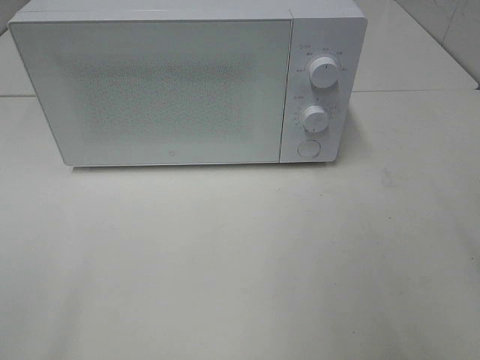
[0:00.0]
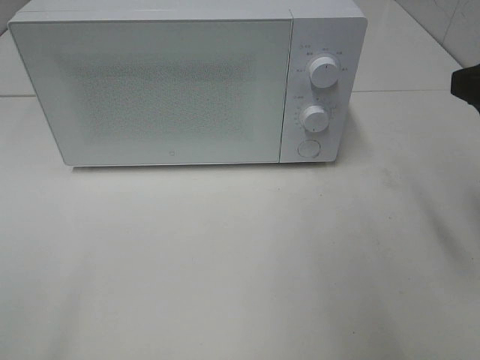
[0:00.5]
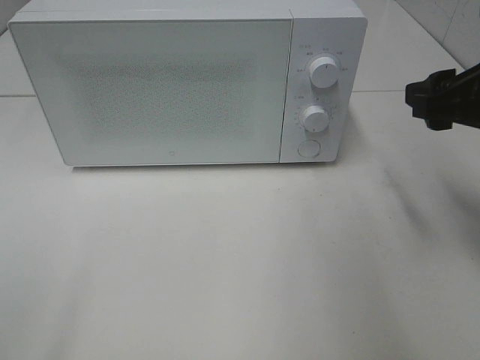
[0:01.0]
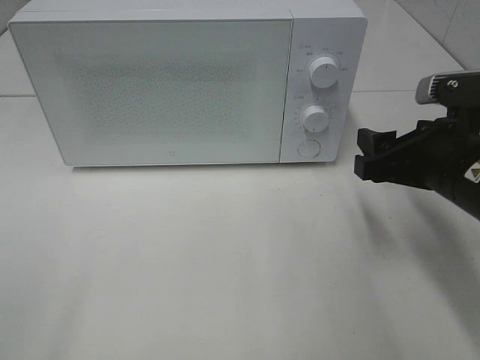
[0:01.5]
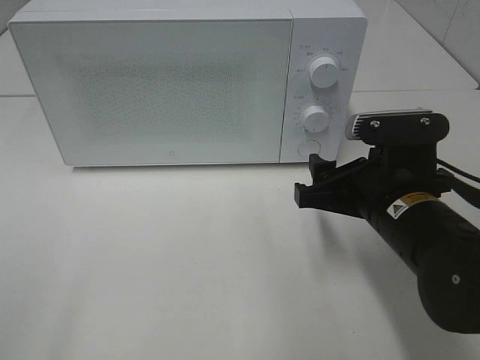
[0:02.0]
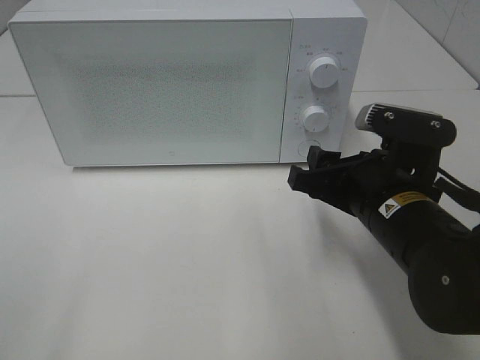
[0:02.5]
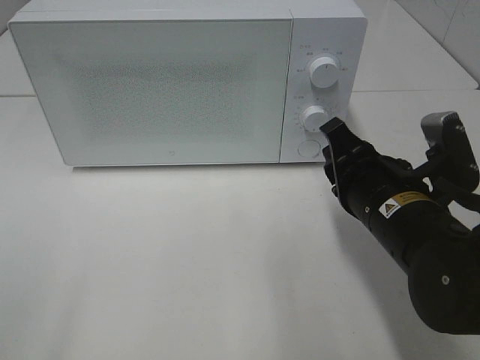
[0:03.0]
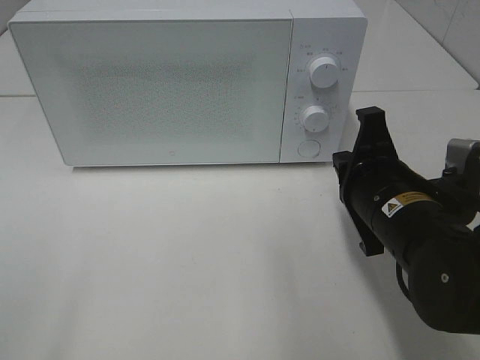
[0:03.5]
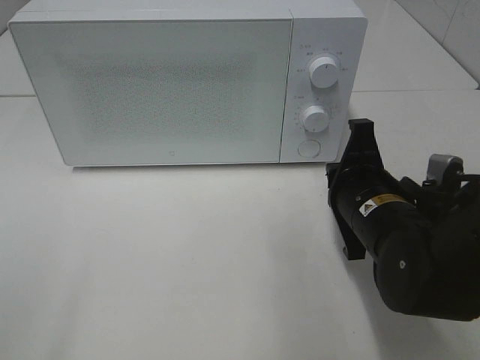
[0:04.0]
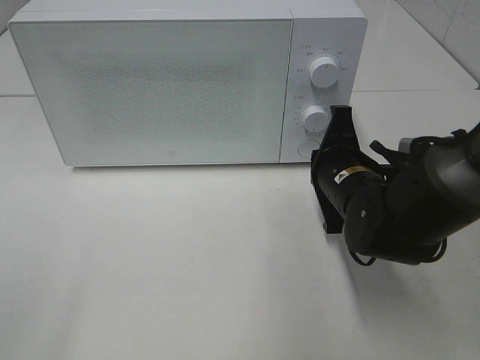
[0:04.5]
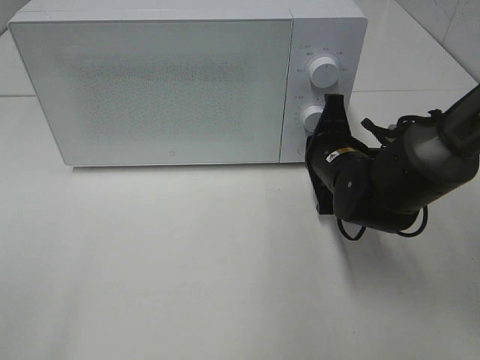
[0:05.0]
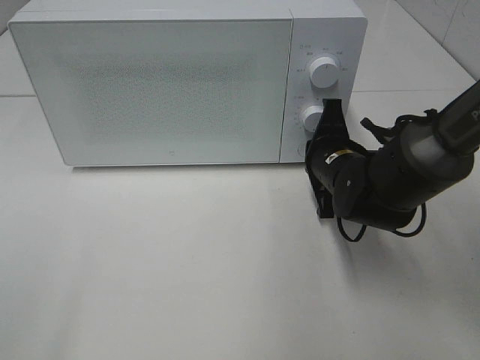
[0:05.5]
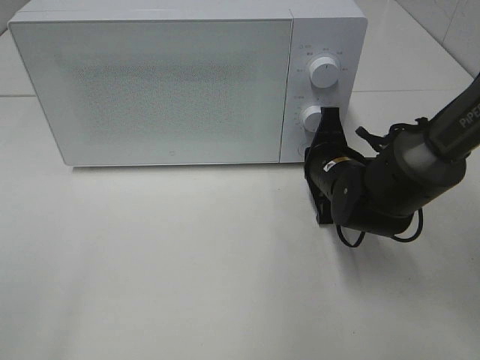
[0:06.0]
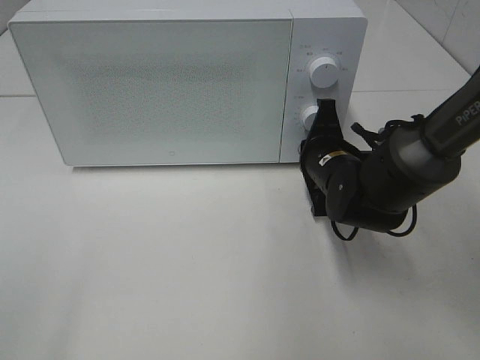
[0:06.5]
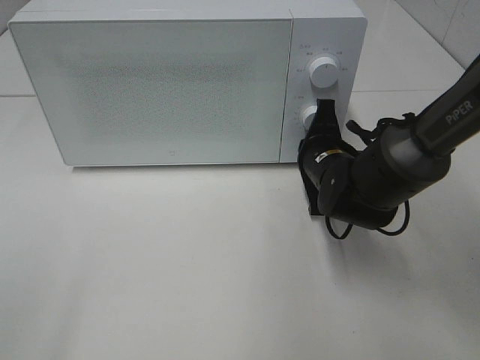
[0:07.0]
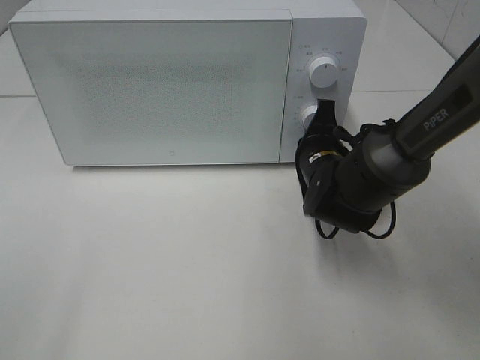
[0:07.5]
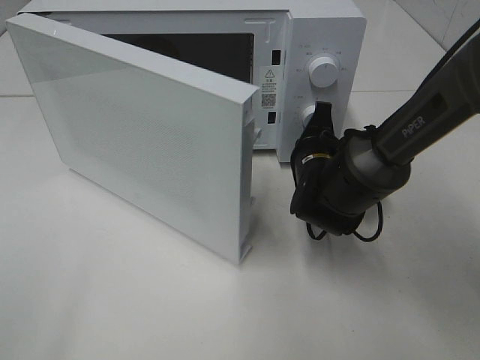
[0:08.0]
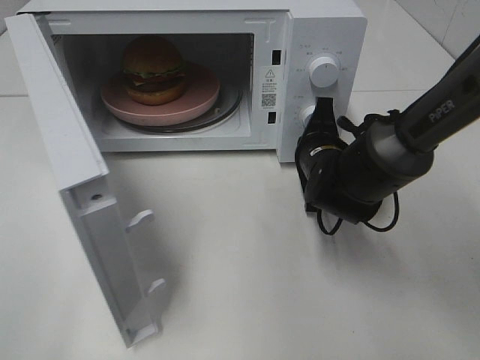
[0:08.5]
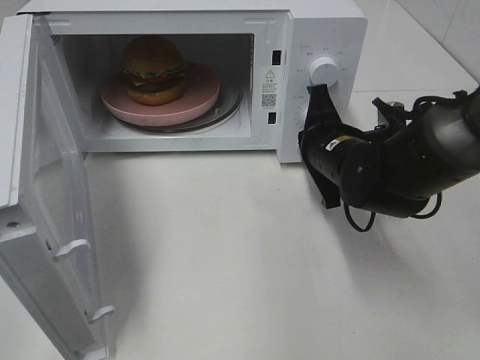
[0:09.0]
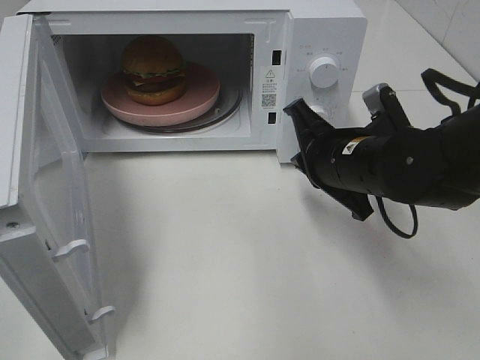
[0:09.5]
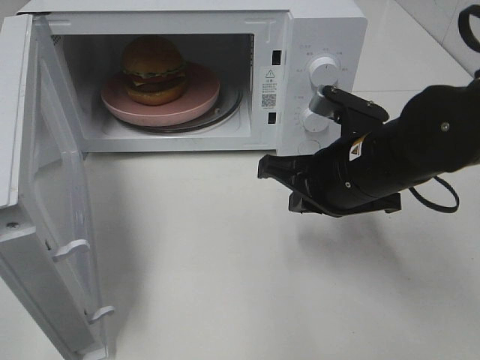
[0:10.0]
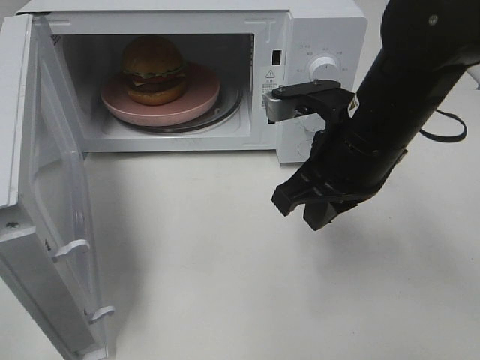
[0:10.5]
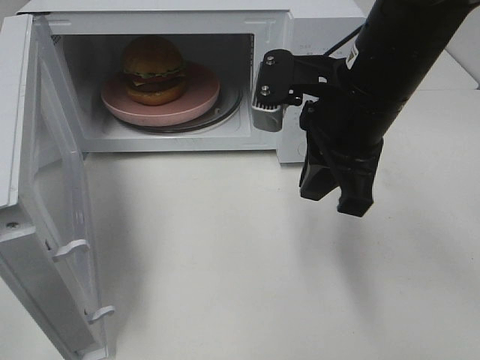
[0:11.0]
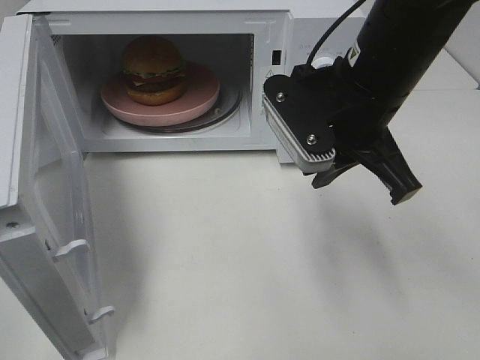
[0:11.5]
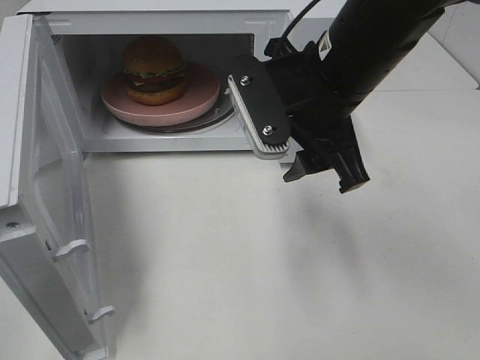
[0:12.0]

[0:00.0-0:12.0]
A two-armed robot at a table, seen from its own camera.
Task of the whole recording: Heat the burger.
Step, 0.0 to 8.5 s: Right hand: press the switch.
0.0 to 2.0 s: The right gripper moves downward, to the left and forward, some 25 cm.
2.0 to 4.0 s: The right gripper closes up.
4.0 to 6.0 s: The right gripper goes roughly 10 cm forward.
8.0 to 10.0 s: The right gripper moves backward and upward, some 15 cm.
10.0 to 12.0 s: The right gripper heads upward, covering some 10 cm, and opens its fingers.

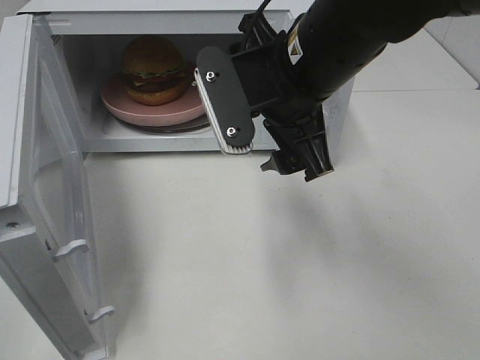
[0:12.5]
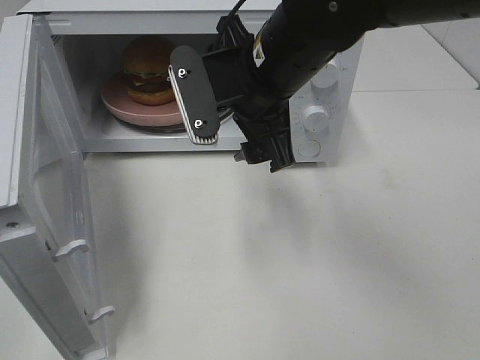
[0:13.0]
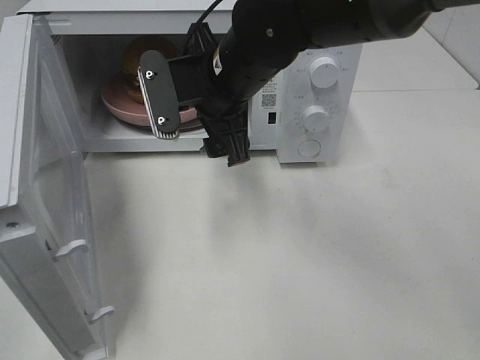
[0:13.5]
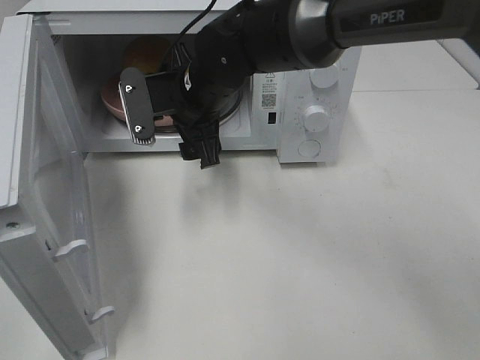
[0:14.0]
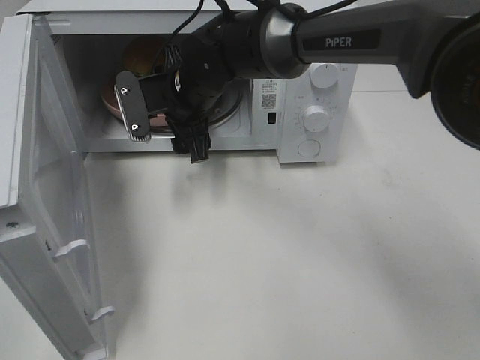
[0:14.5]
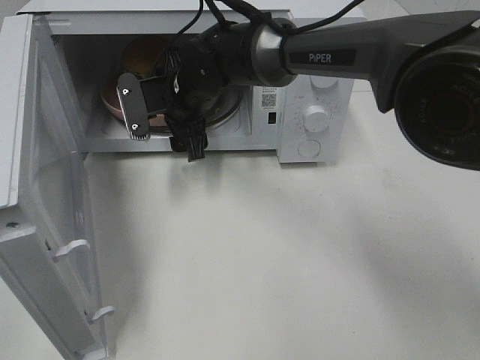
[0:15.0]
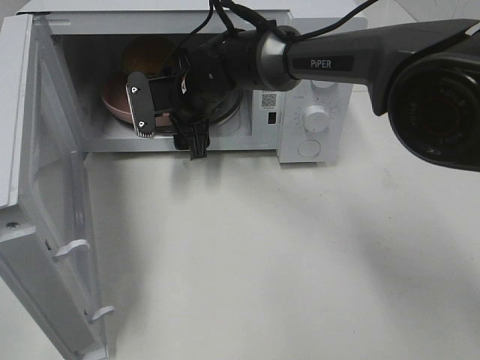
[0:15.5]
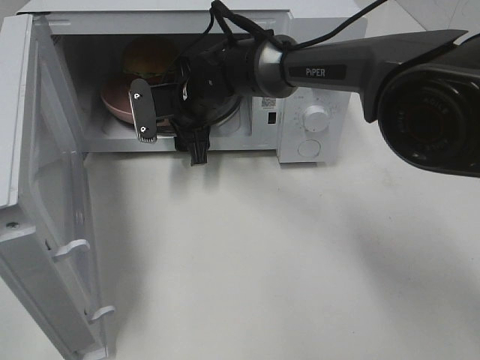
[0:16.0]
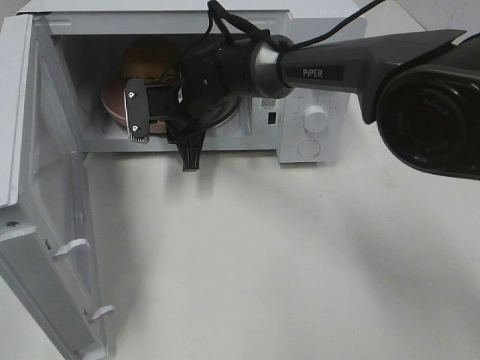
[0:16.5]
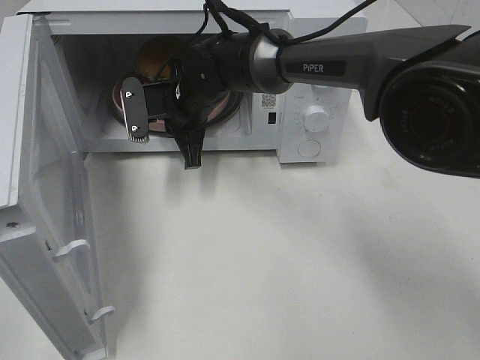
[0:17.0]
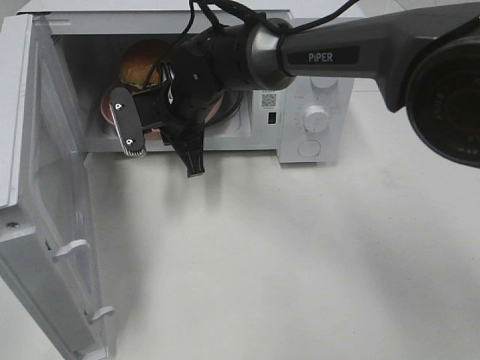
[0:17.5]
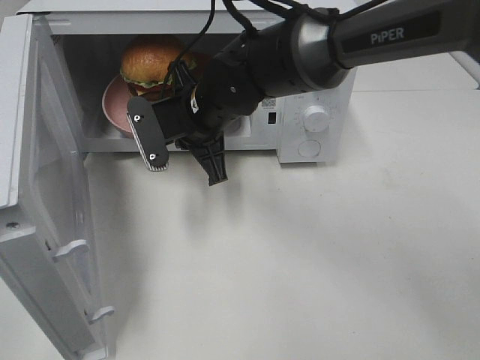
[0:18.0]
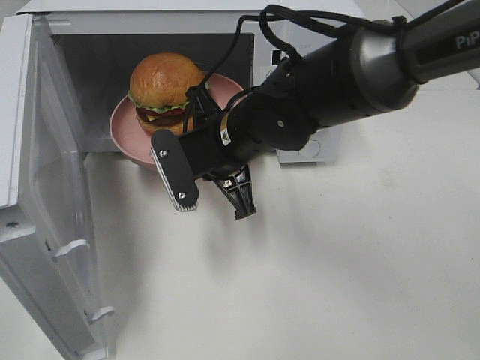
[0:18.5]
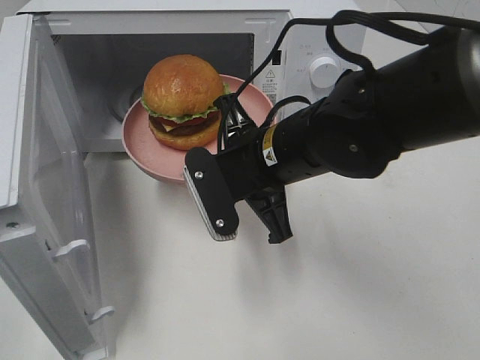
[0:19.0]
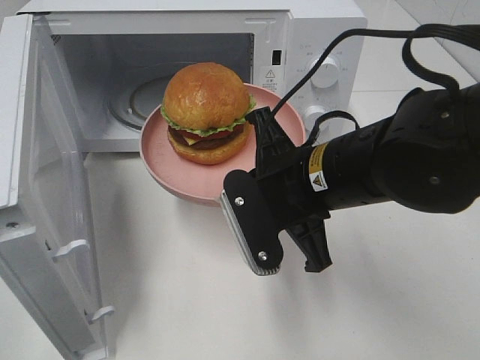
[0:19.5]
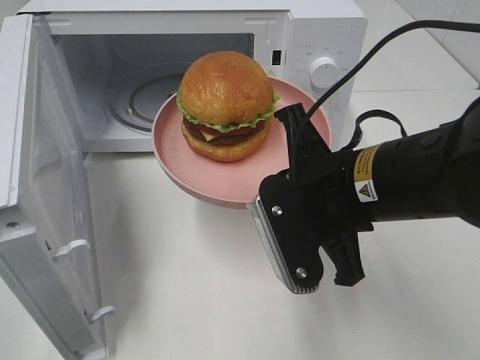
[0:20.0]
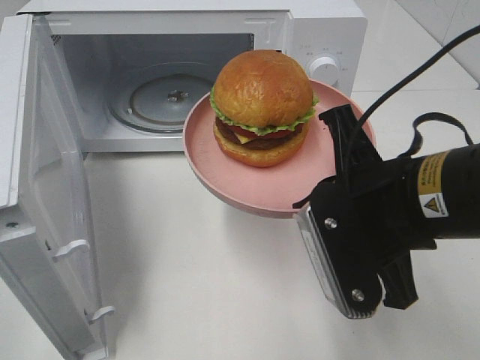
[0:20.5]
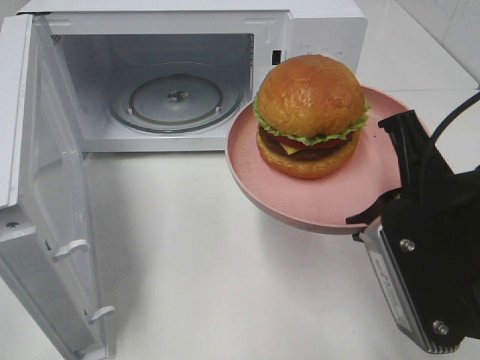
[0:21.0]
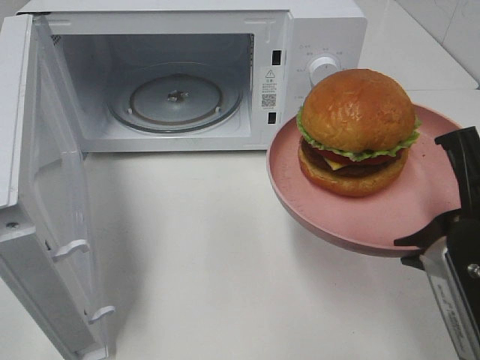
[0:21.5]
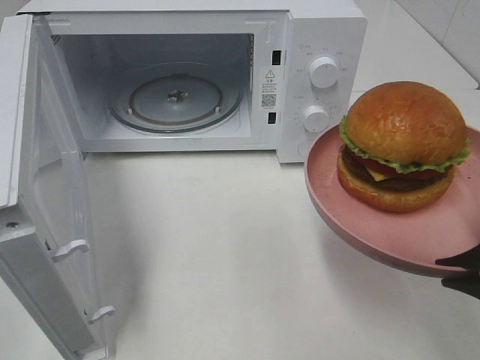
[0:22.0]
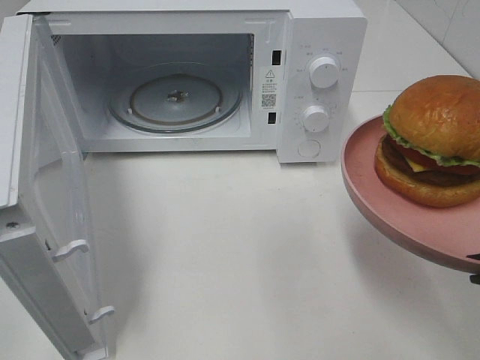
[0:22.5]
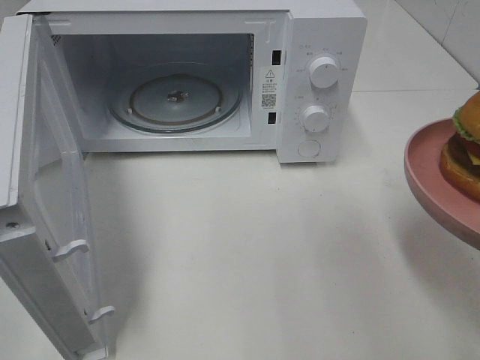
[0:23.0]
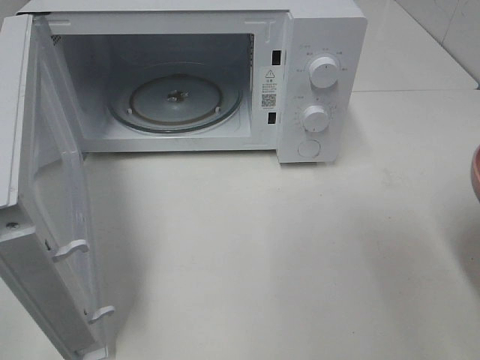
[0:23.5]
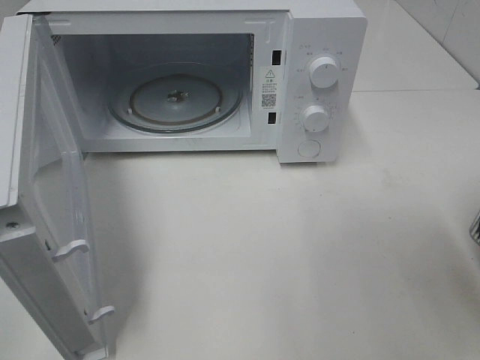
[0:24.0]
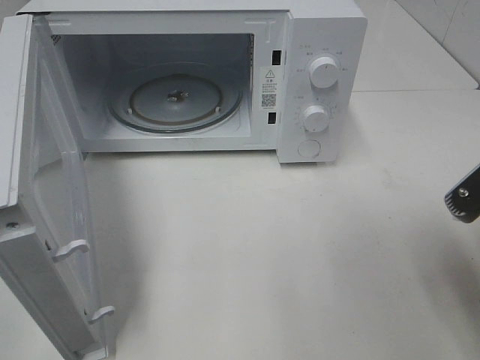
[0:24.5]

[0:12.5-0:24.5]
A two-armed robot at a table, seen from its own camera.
Task of the whole recording: Heat the burger.
Step, 12.5 to 16.5 s: Right hand: grab the plate with the hamburger.
12.5 to 14.5 s: The right gripper heads forward, to the left and downward, covering roughly 20 cm.
14.5 to 16.5 s: The right gripper closes up.
16.5 to 18.5 s: The right gripper goes some 15 cm backward and to the right.
18.5 to 20.5 s: The right gripper is displaced backward, to the right and upward by about 20 cm.
20.5 to 22.5 s: The right gripper moves to the right and backward, roughly 15 cm.
22.5 to 24.5 s: The right gripper moves forward, roughly 5 cm.

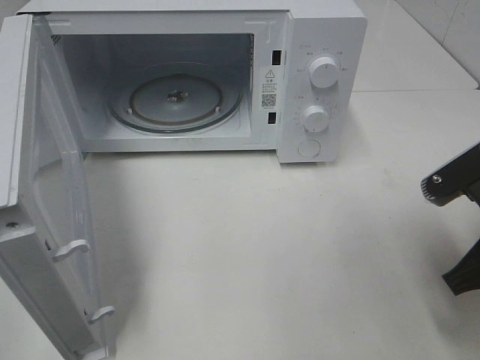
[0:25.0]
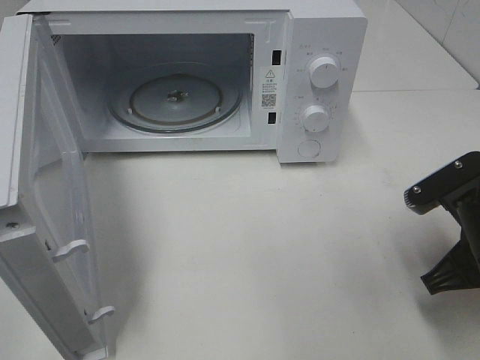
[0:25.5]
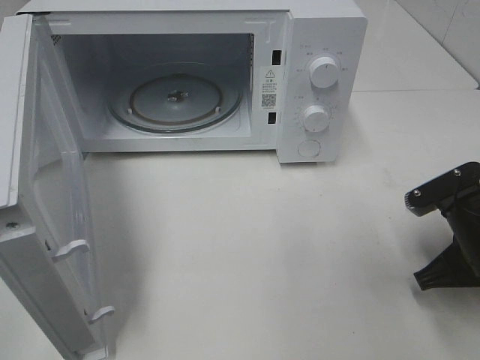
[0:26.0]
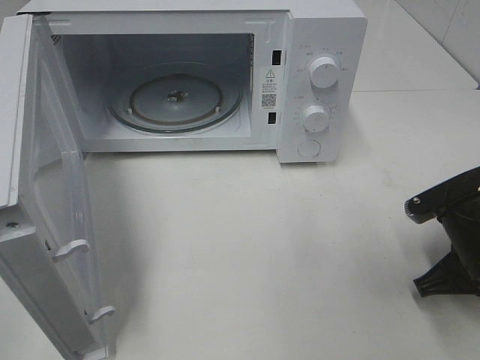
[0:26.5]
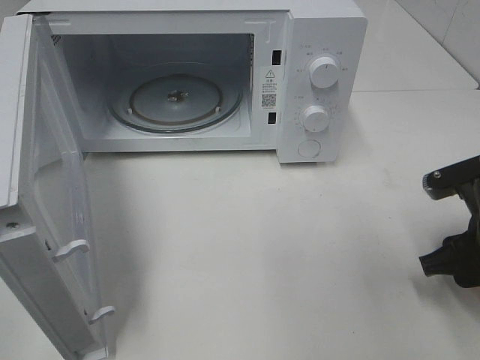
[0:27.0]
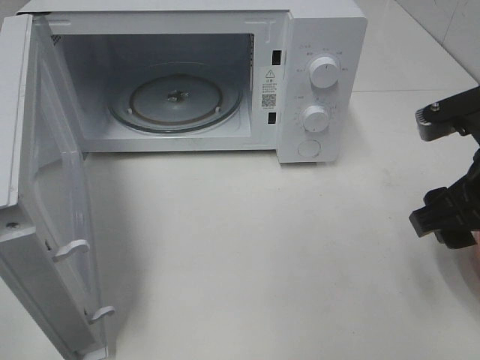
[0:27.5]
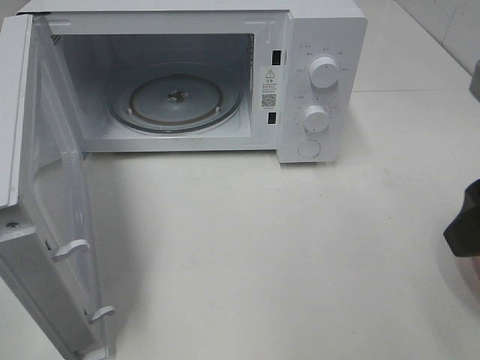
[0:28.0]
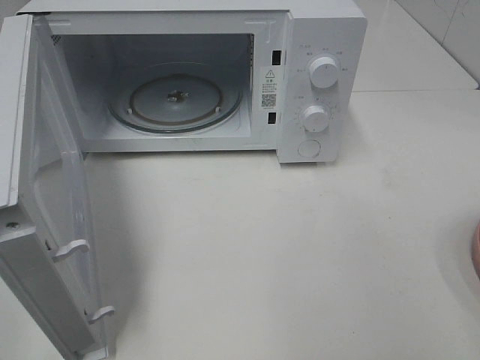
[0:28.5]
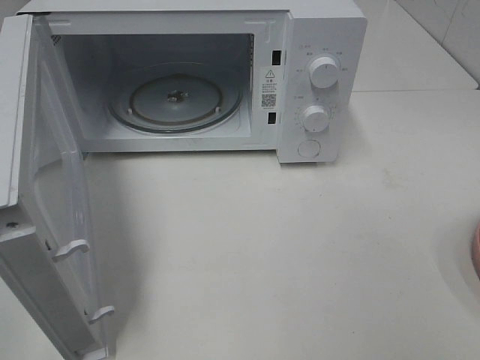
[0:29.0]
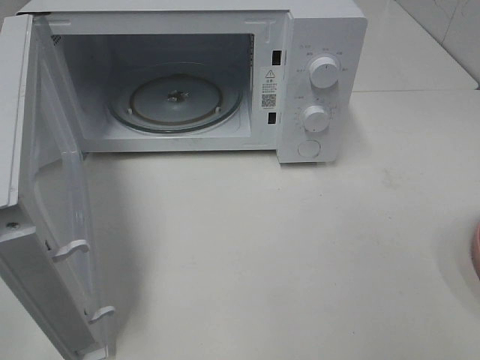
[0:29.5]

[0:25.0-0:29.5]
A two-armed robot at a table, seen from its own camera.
Task of the whole recording: Heat the burger.
25.0 to 27.0 s: The right gripper opens up.
27.0 to 29.5 s: The right gripper travels backward and upward by approximately 25 cm.
